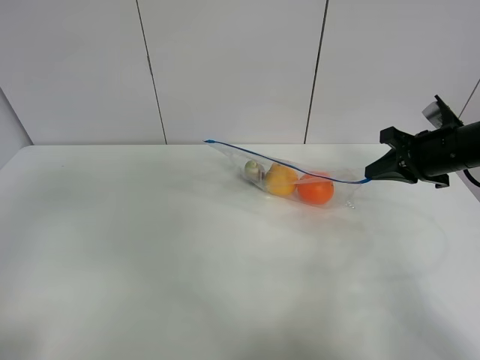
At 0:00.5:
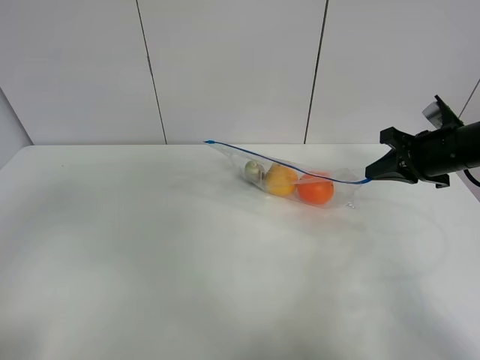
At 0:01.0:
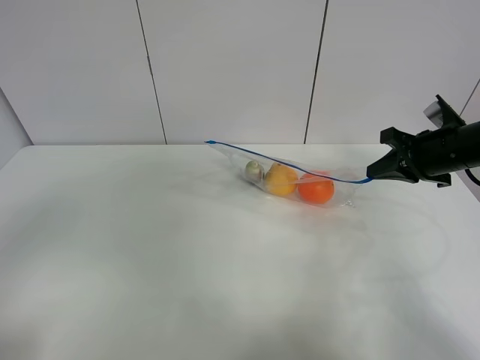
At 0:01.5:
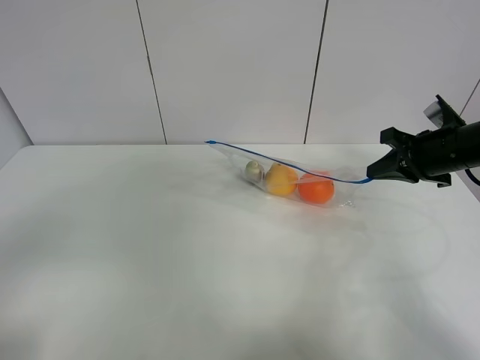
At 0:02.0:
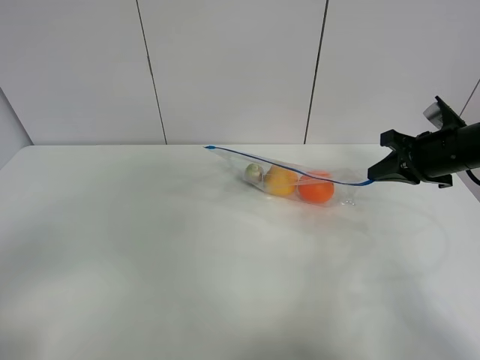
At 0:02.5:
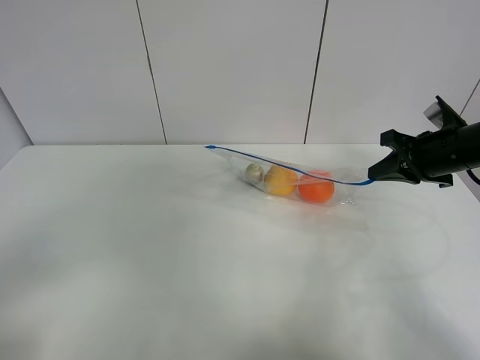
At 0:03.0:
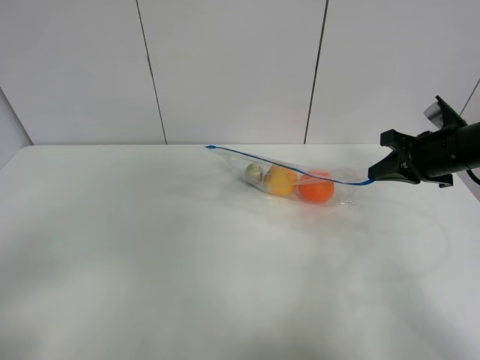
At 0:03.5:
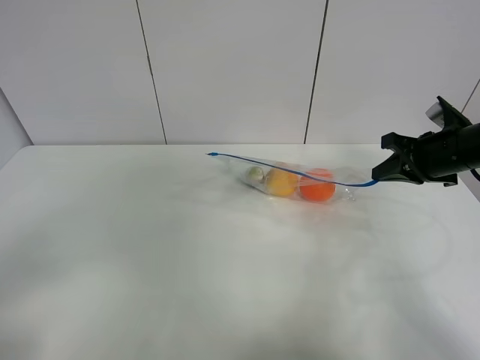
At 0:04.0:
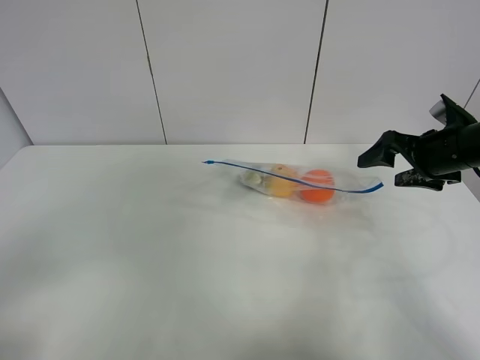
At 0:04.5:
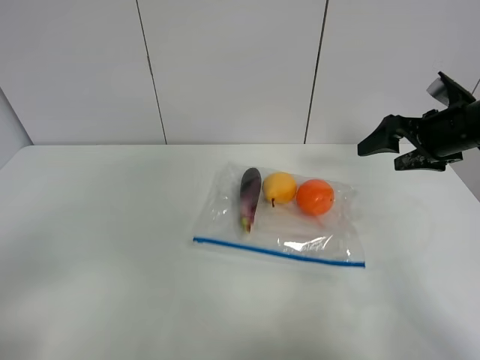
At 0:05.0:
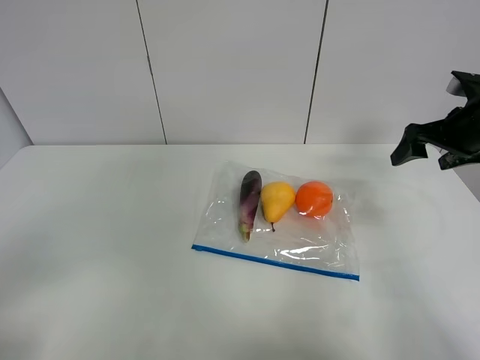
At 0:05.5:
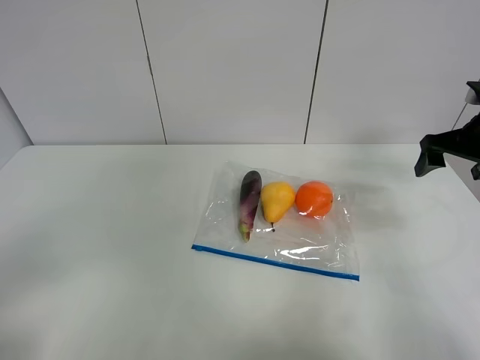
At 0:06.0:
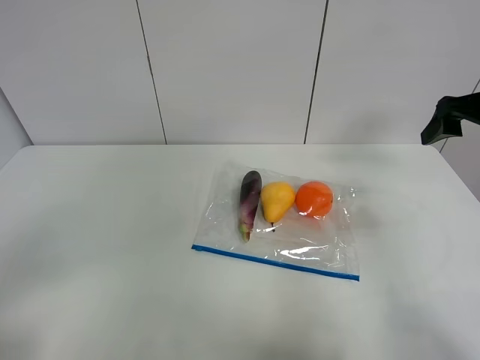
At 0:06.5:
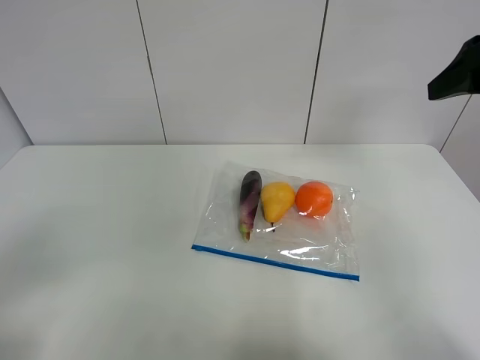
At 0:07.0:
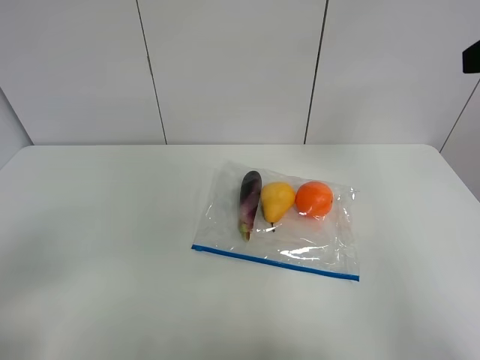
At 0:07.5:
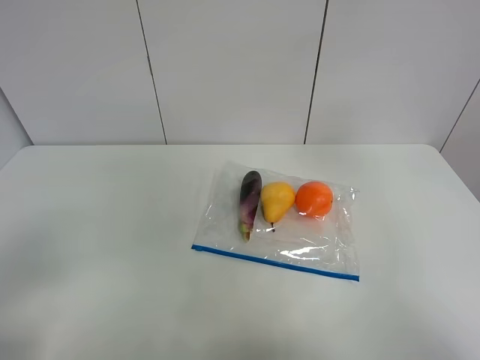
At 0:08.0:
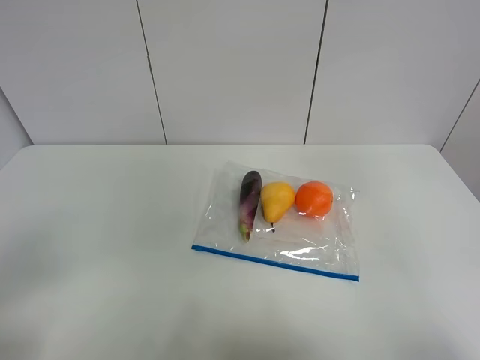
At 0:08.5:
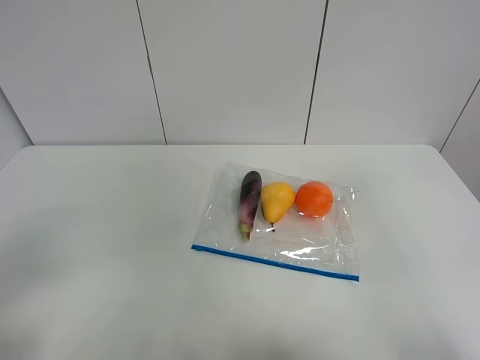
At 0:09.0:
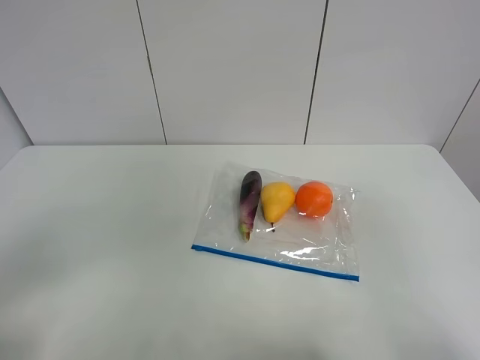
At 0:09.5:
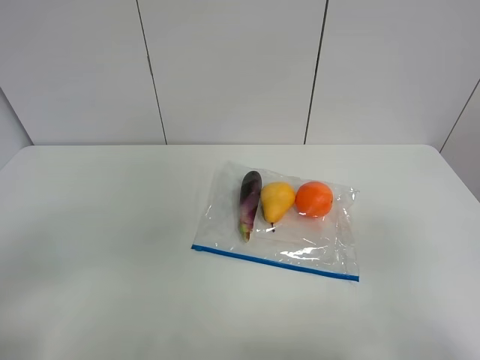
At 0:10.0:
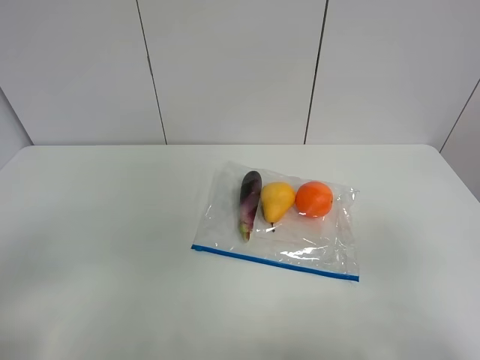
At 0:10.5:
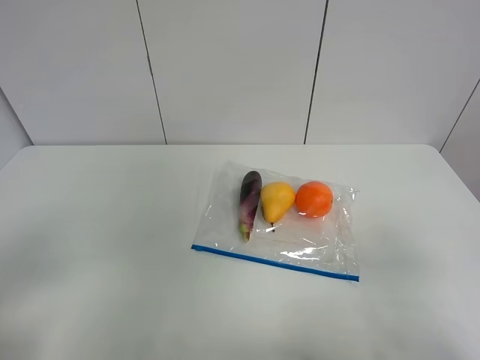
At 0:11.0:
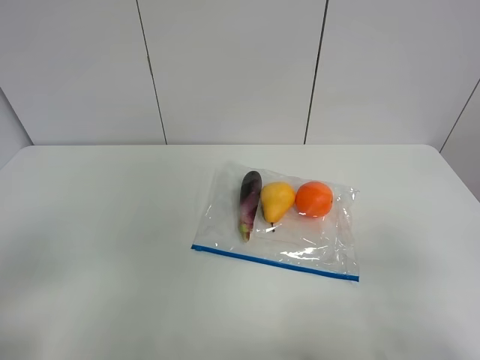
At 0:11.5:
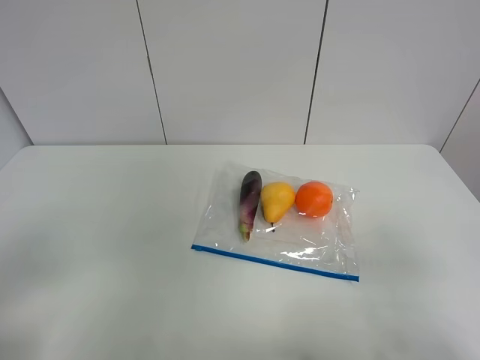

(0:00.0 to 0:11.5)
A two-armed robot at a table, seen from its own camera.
Step, 0:00.0 - 0:04.5: Place the fruit bag with right gripper.
0:02.0 - 0:04.0: The right gripper opens up.
0:04.0 - 0:06.0: The right gripper is displaced upward by roughly 10 cm.
0:06.0 - 0:07.5: The right gripper is displaced backward and upward by approximately 25 cm.
0:07.5 - 0:09.5: The right gripper moves backward and downward, some 20 cm.
